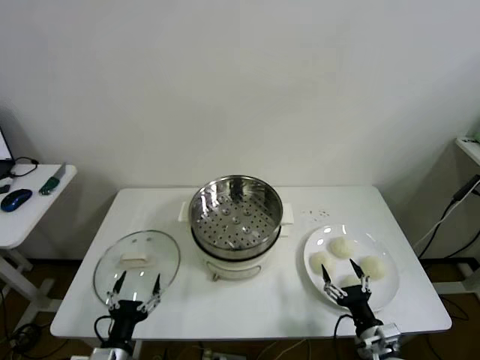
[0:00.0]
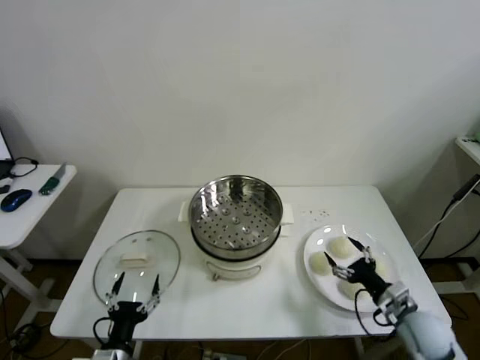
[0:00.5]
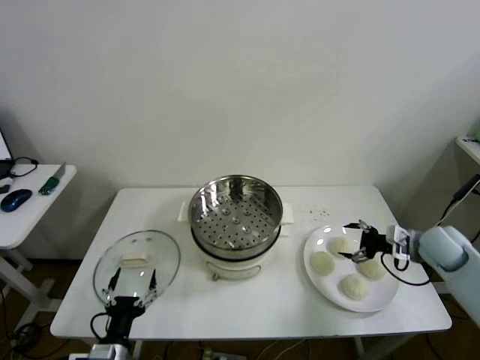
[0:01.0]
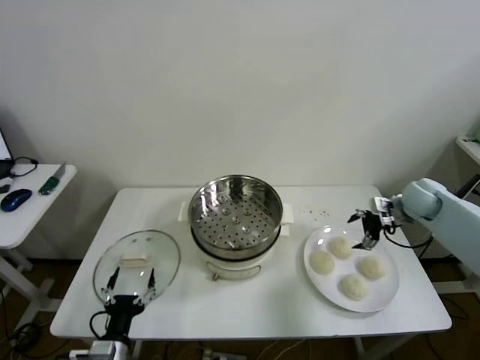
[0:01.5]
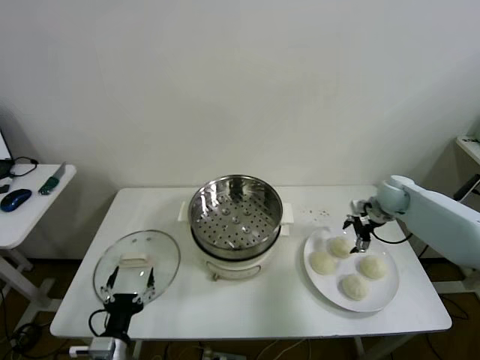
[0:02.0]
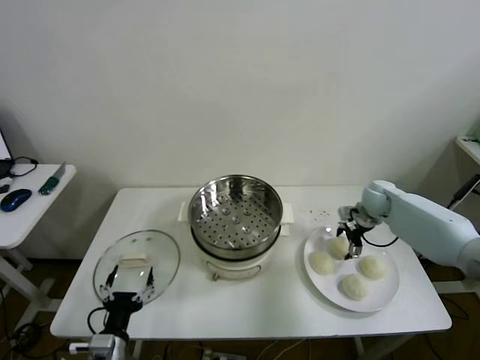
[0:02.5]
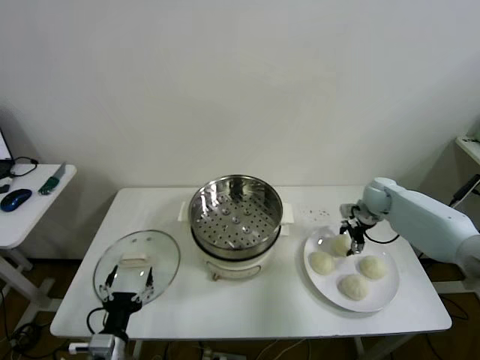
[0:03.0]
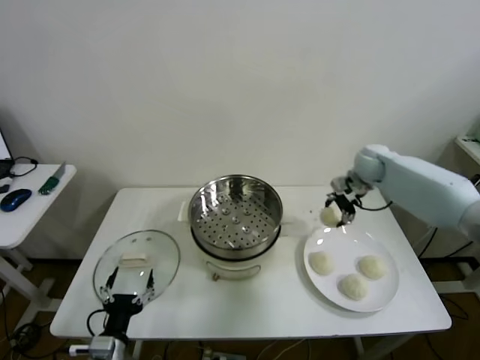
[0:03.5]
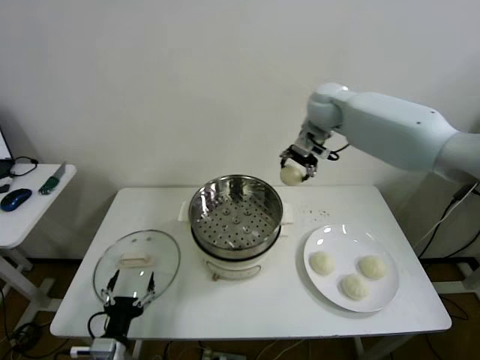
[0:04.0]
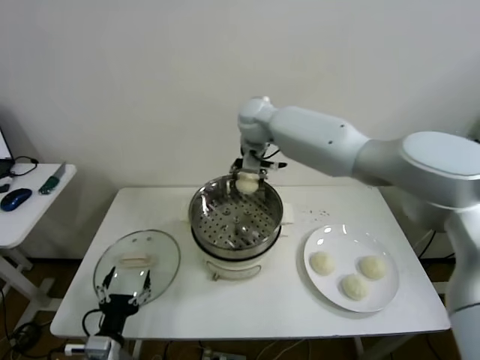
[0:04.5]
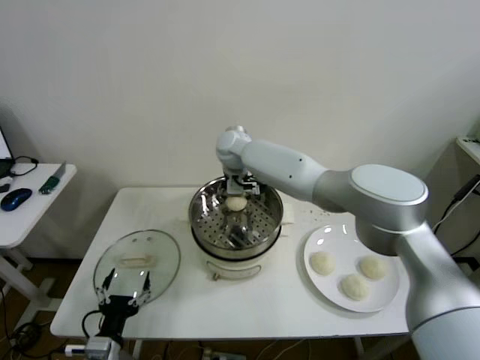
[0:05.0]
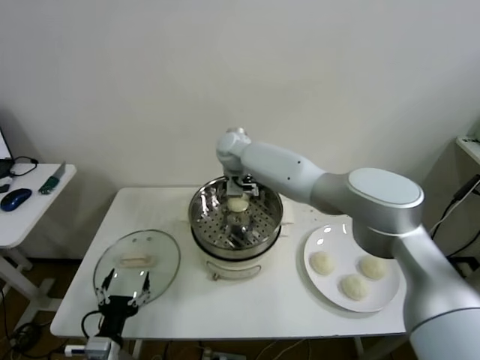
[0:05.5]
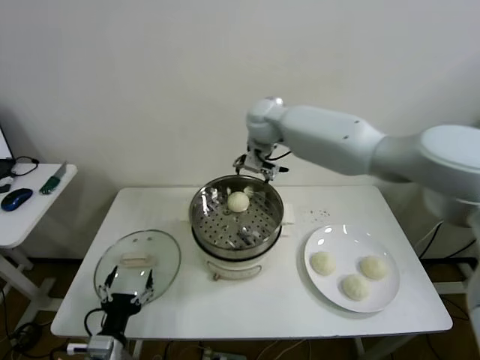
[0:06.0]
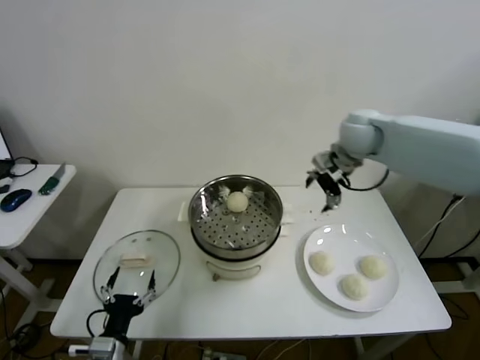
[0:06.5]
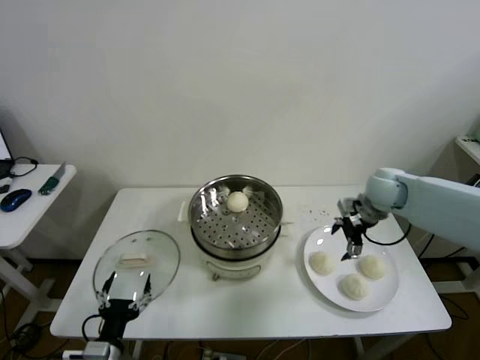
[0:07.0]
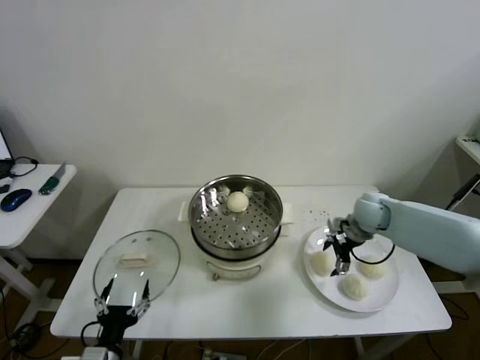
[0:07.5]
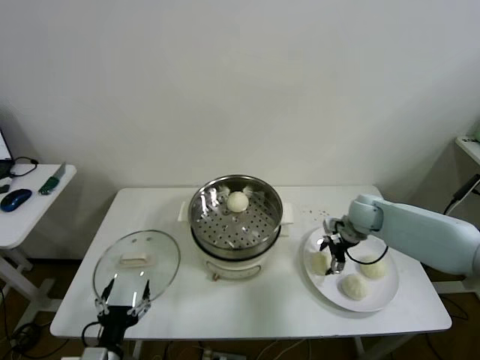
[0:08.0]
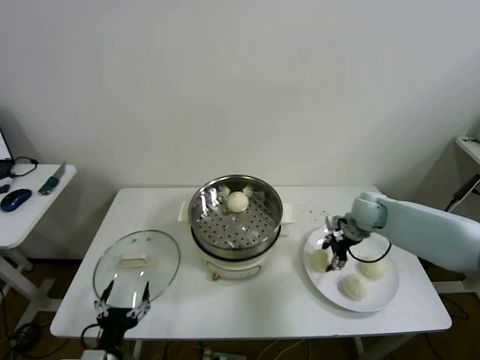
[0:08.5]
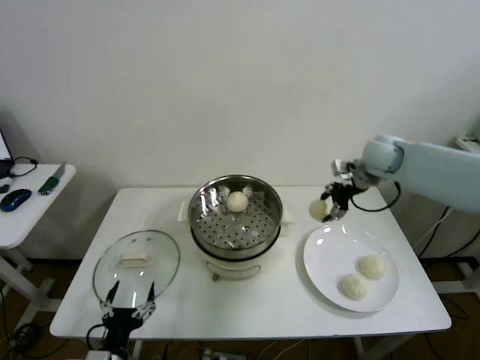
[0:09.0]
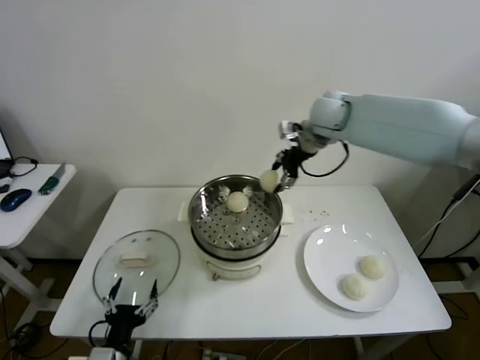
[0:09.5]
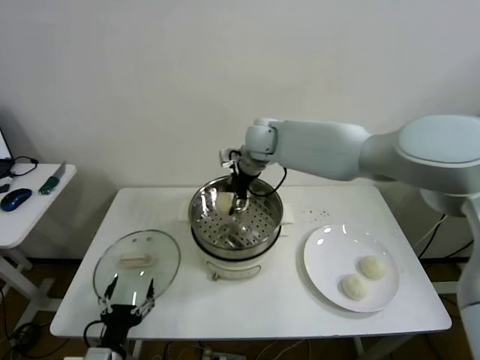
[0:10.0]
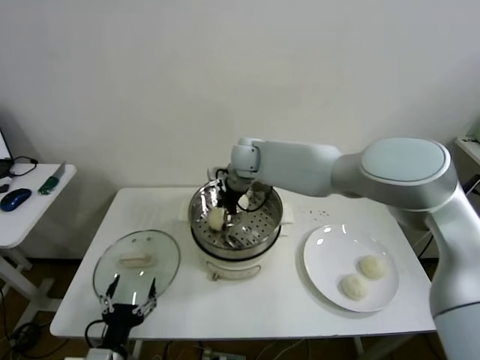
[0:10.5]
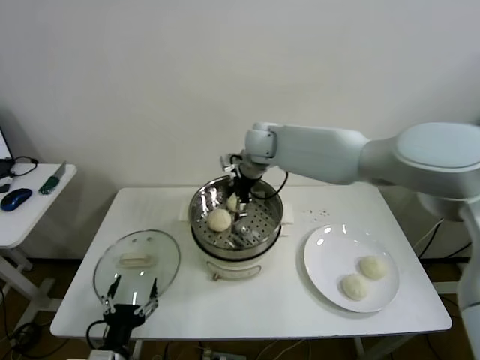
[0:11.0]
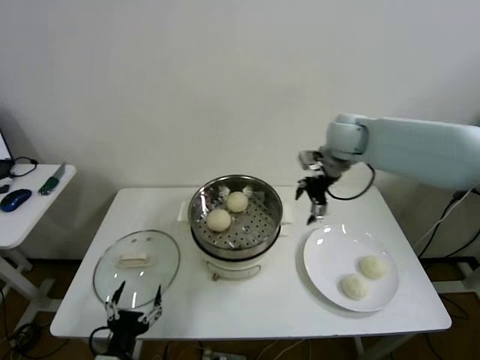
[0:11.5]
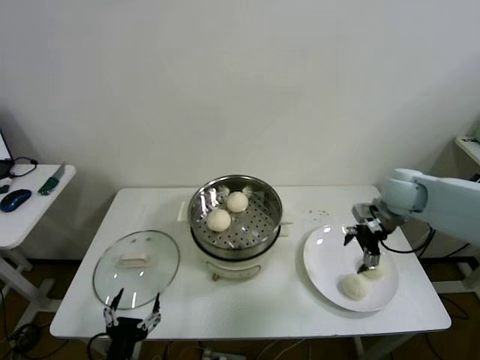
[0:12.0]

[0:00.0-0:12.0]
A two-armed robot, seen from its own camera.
Step, 0:00.0 to 0:02.5: Grasp the baozi in the plate with right gripper.
Step, 0:03.0 to 0:05.0: Place the baozi on the steamer with right gripper.
Step, 0:06.0 to 0:08.0: Grasp the baozi in the plate with right gripper.
Step, 0:08.5 to 0:10.5: Place the baozi on the steamer with right gripper.
0:02.0 to 0:04.0: The right gripper heads upward and to the left, covering some 30 cm, and closes its fingers.
0:04.0 to 0:06.0: The right gripper heads to the left, covering approximately 15 cm, and opens up.
0:06.0 to 0:08.0: The right gripper shifts some 35 cm to the right and downward.
0:08.0 to 0:10.0: The right gripper shifts some 35 cm to the left and upward, and closes.
0:10.0 to 0:12.0: The right gripper travels to the right by about 30 cm, and opens.

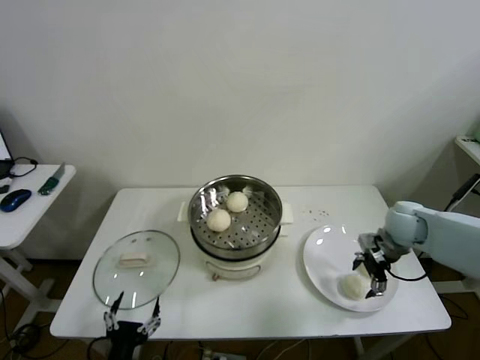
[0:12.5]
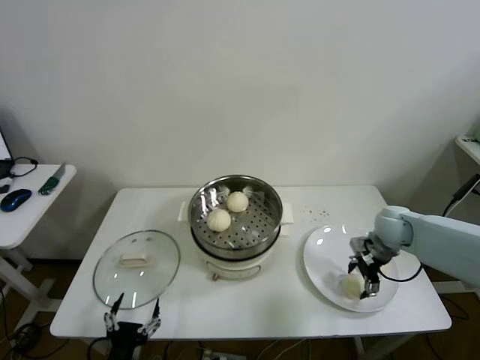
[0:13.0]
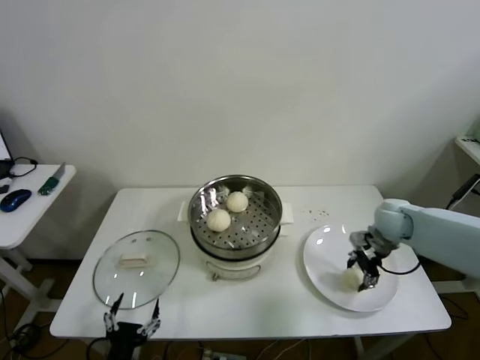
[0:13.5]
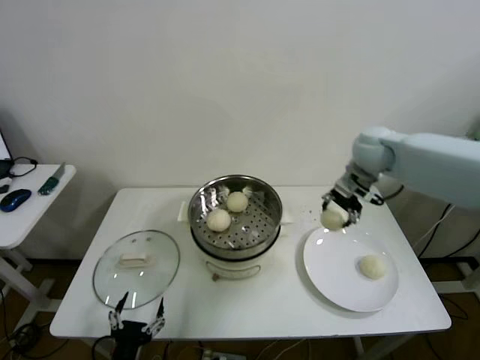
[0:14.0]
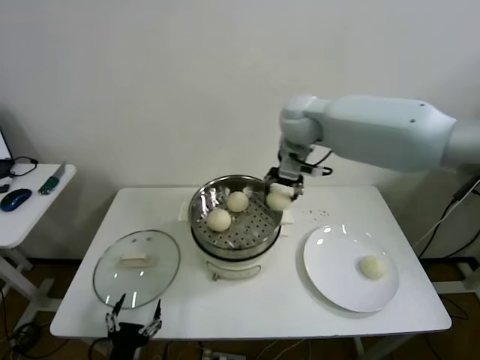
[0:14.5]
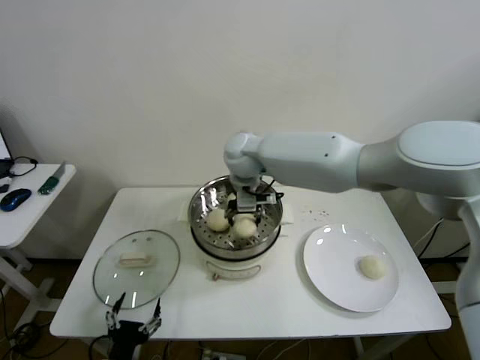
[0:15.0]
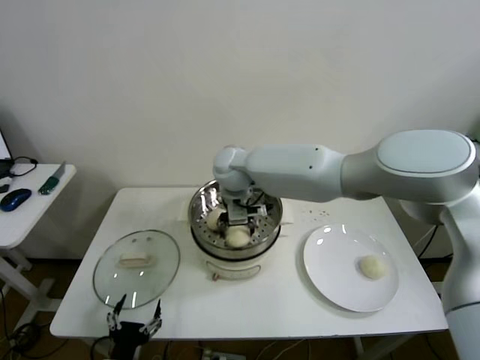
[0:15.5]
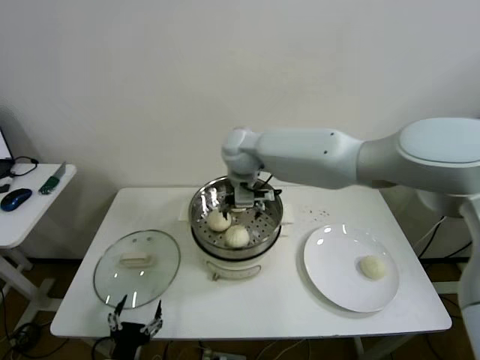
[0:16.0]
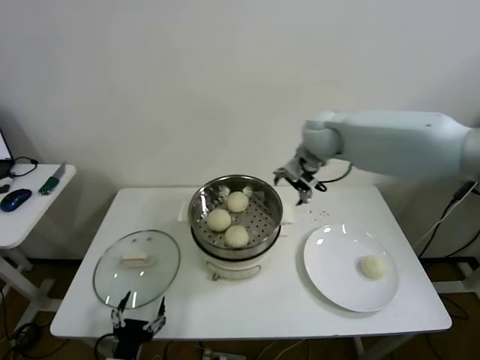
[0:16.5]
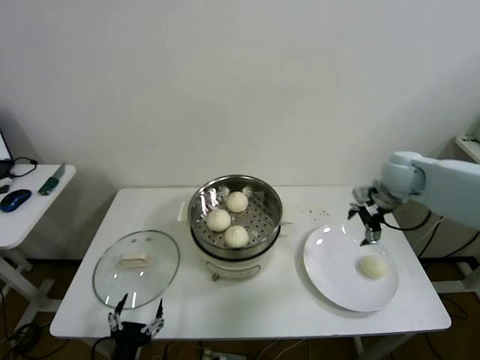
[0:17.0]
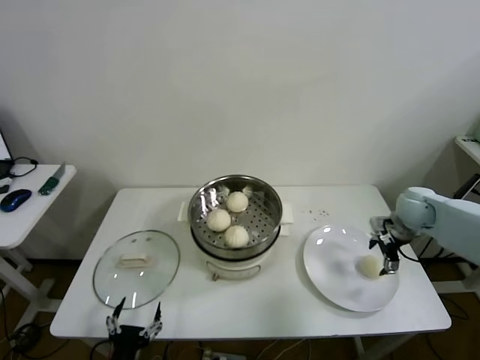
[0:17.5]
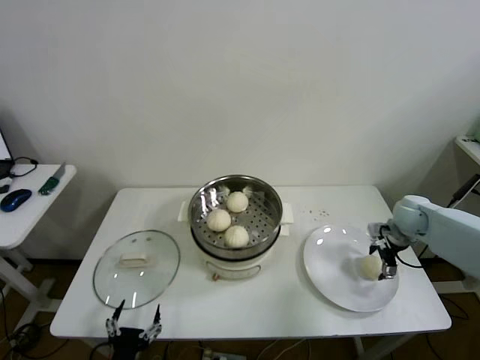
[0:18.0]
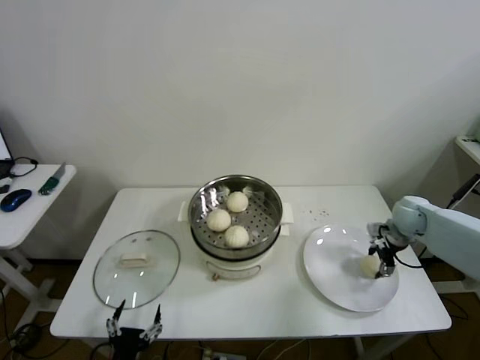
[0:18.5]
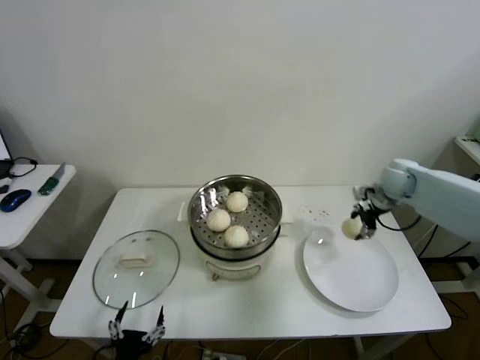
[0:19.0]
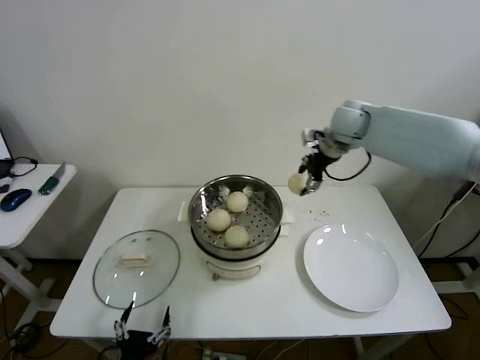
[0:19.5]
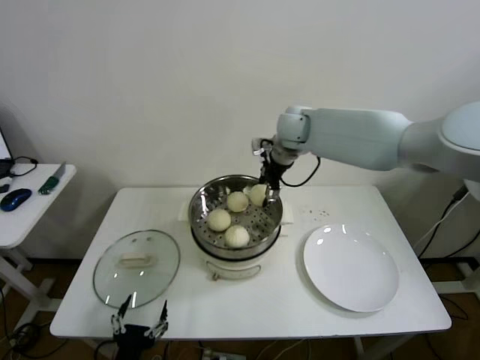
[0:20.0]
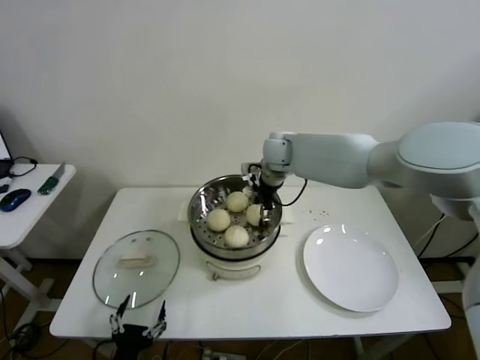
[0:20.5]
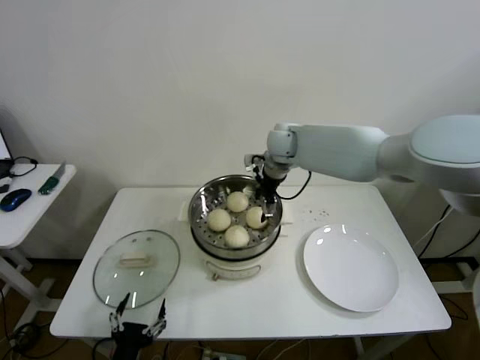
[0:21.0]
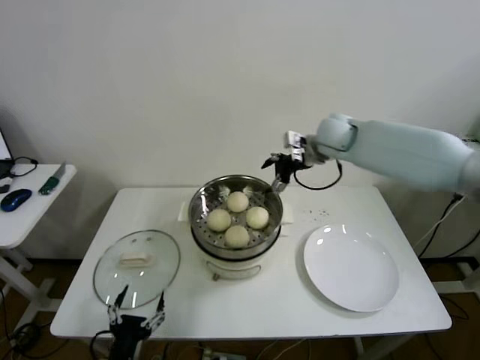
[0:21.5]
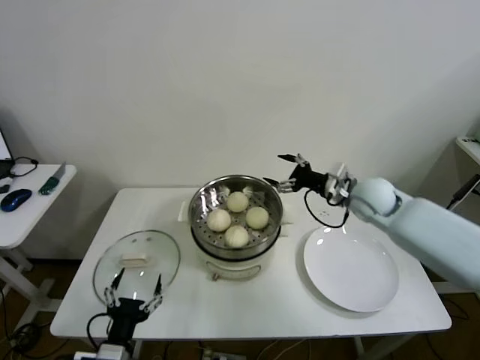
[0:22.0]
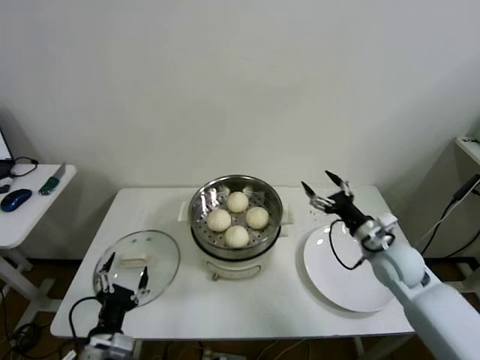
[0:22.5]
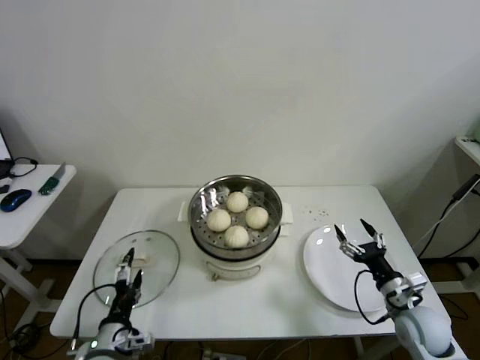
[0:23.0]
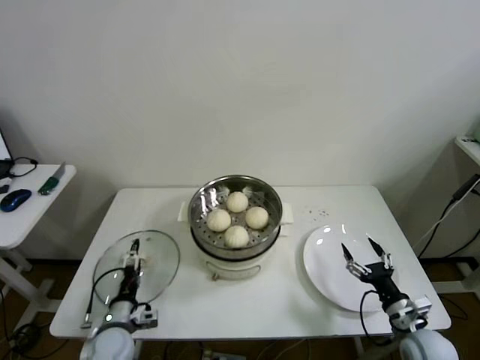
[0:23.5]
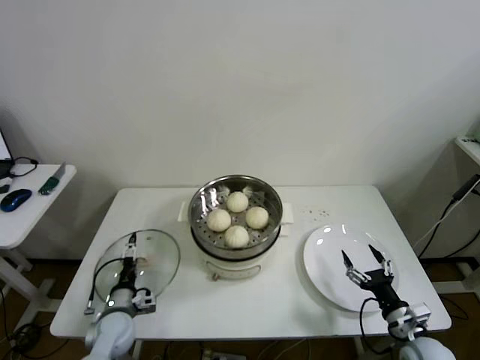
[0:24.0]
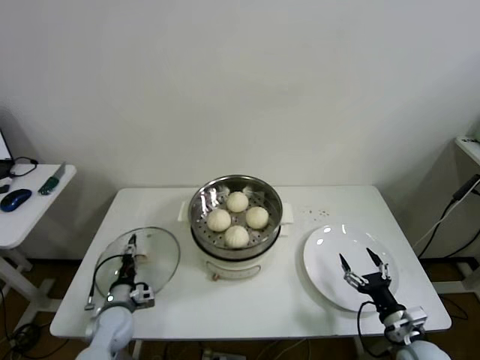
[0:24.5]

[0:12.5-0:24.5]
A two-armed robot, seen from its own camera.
Step, 0:13.5 to 0:15.5: Place the baozi on the steamer with right gripper.
Step, 0:16.0 to 0:18.0: Grasp the baozi in the plate with right gripper.
Step, 0:19.0 to 0:20.5: Place the baozi on the steamer with right gripper.
0:12.5 to 0:14.5: The right gripper moves to the left and upward, some 35 cm, and closes its fingers.
0:14.5 to 0:16.5: The right gripper goes to the left and returns, some 15 cm each way, and opens.
0:16.5 to 0:18.5: The right gripper shifts roughly 35 cm to the right and downward, and closes.
0:18.5 to 0:20.5: The right gripper heads to the left and upward, covering roughly 35 cm.
0:20.5 to 0:22.5: The right gripper shifts roughly 35 cm to the right, backward and downward, and opens up. Meanwhile the left gripper shifts about 5 cm forward.
0:22.5 to 0:24.5: The right gripper goes roughly 20 cm backward and downward; the left gripper shifts some 20 cm forward and downward, and closes.

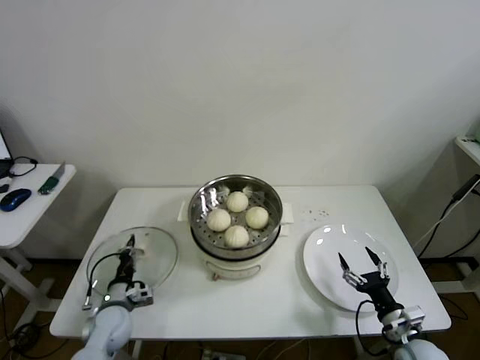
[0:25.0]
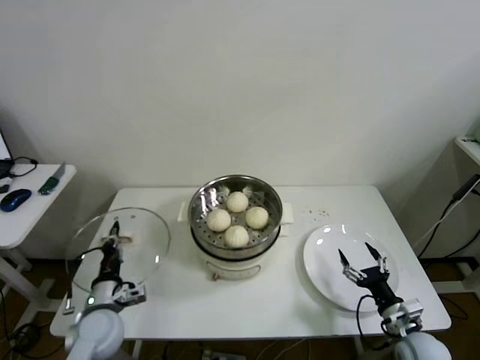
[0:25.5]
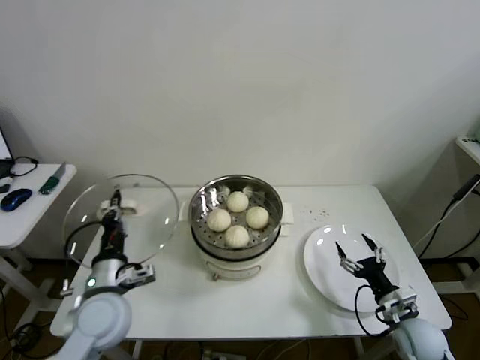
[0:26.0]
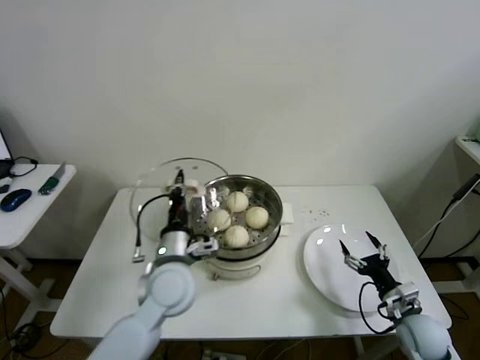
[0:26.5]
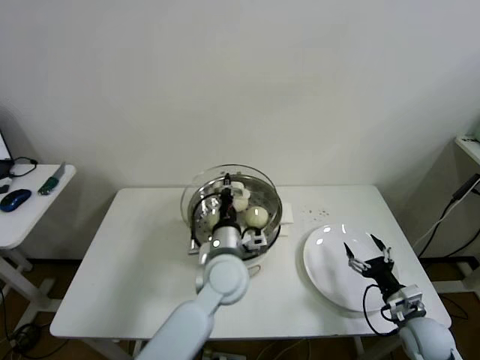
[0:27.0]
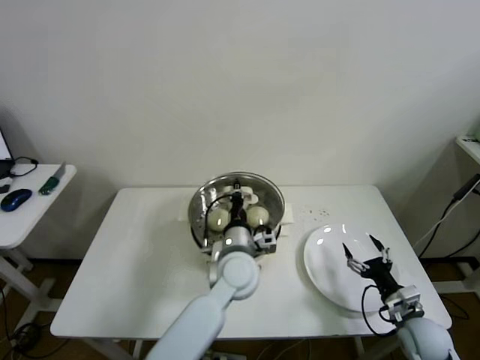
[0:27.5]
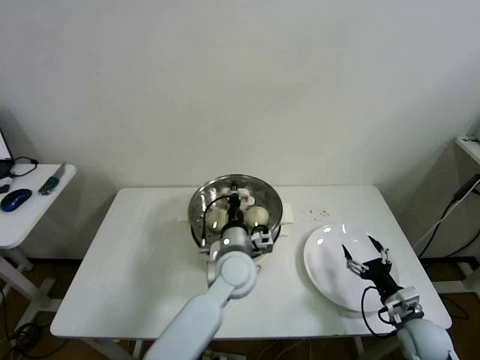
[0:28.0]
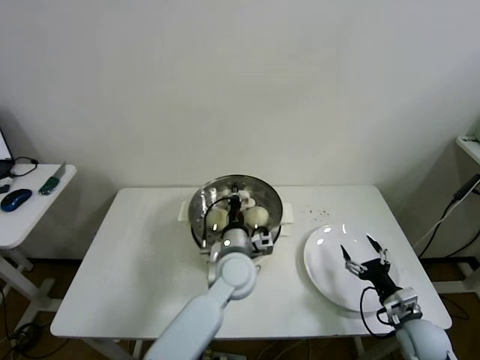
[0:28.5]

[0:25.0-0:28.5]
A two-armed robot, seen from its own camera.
0:25.0 to 0:27.0: The left gripper goes approximately 35 cm to the right and upward; the right gripper ends up roughly 5 cm from where it was.
0:27.0 to 0:28.5: The left gripper changes place by about 5 cm.
